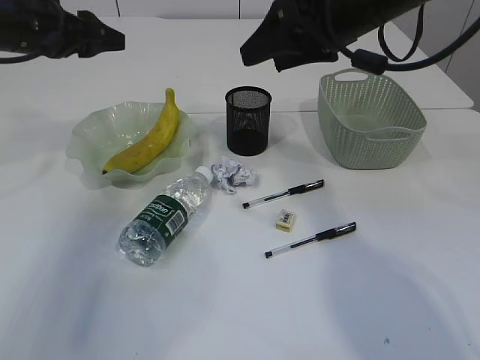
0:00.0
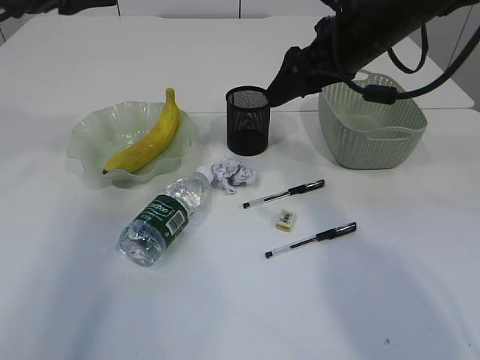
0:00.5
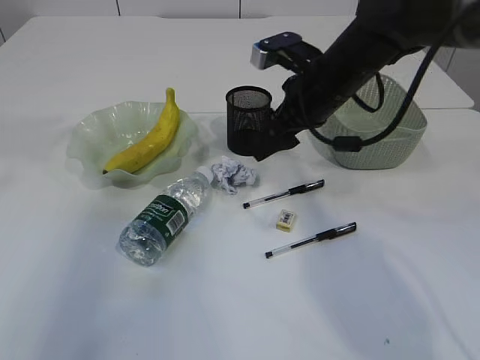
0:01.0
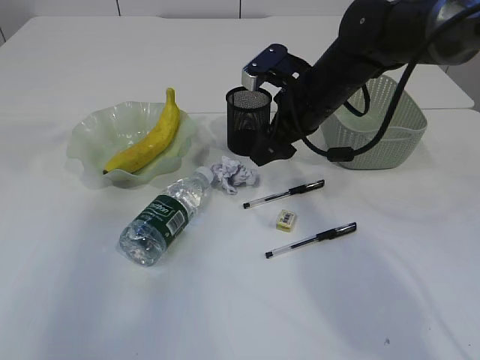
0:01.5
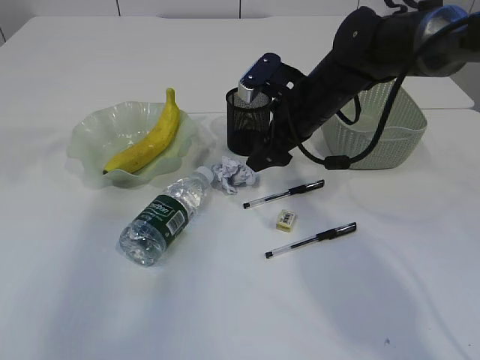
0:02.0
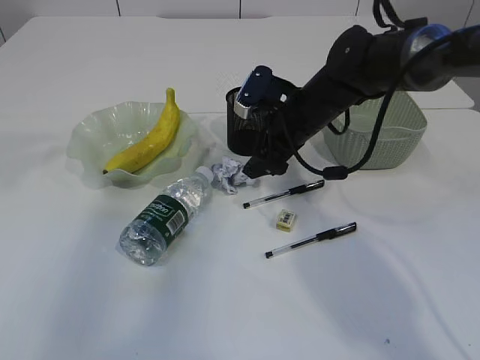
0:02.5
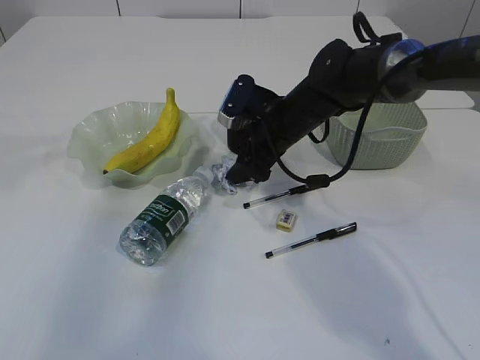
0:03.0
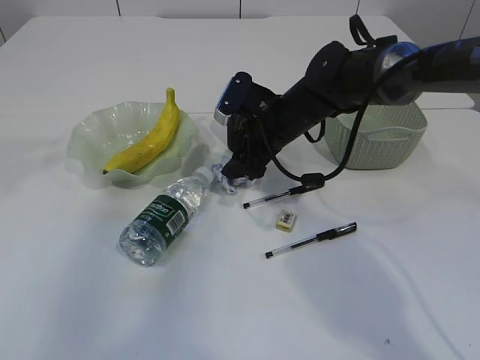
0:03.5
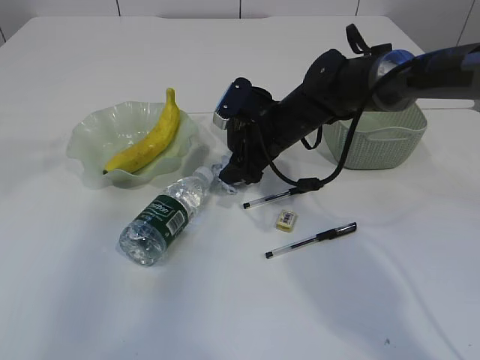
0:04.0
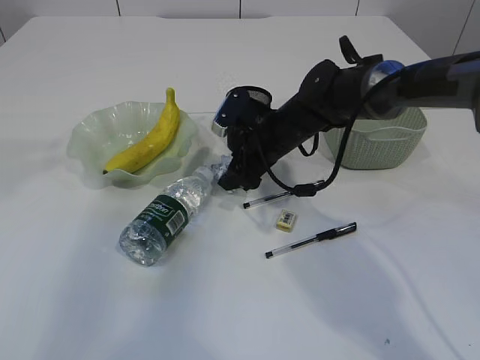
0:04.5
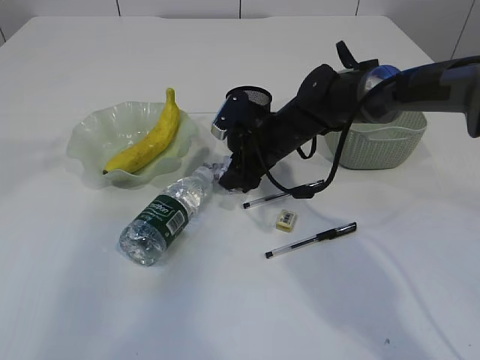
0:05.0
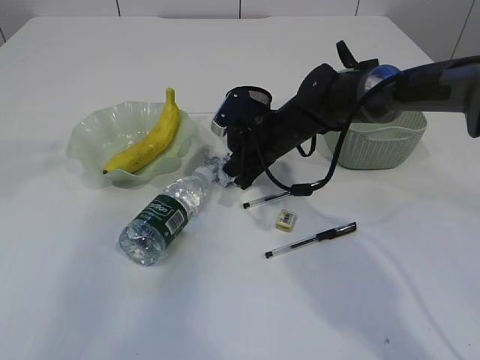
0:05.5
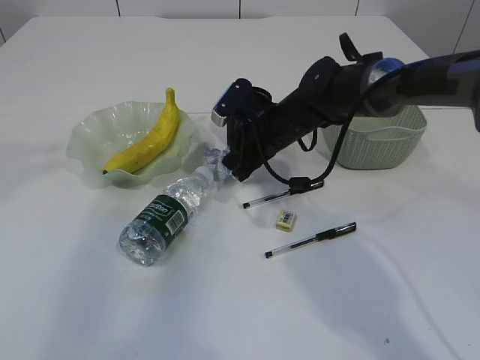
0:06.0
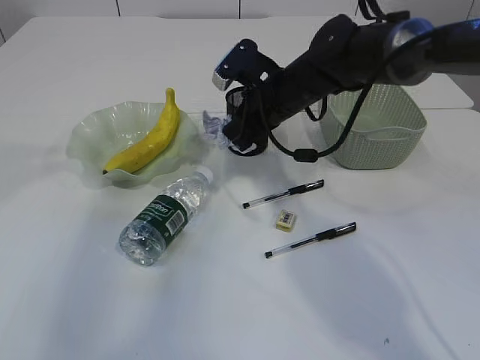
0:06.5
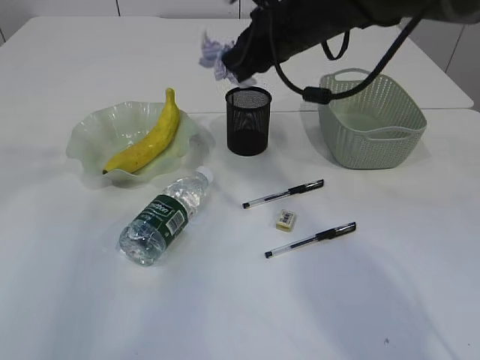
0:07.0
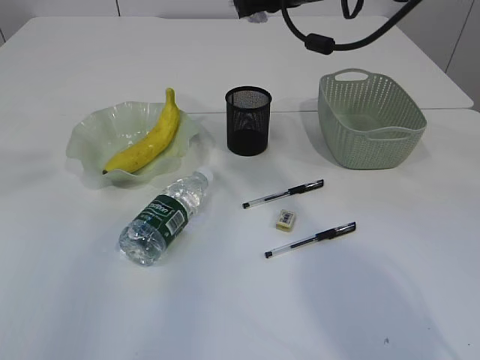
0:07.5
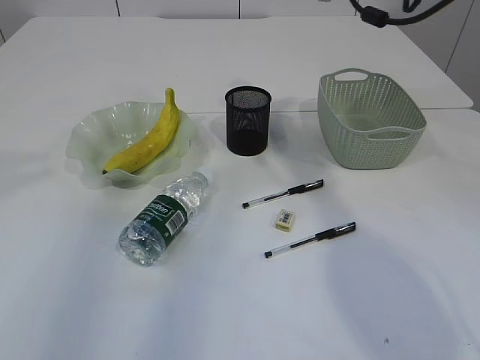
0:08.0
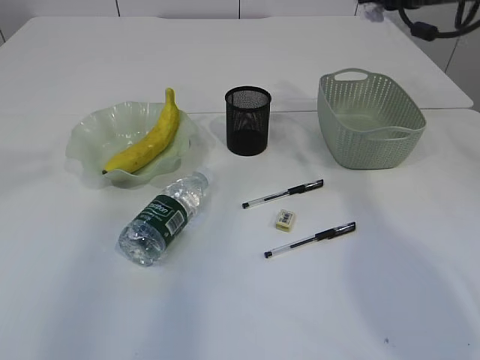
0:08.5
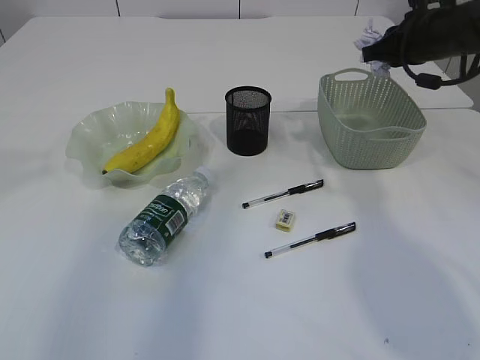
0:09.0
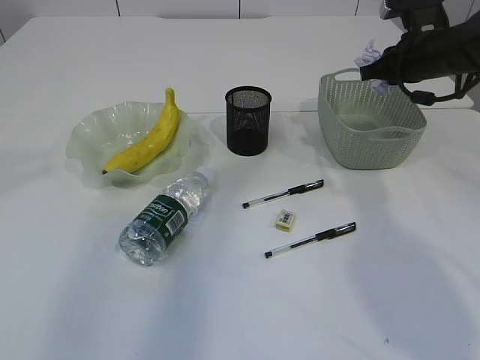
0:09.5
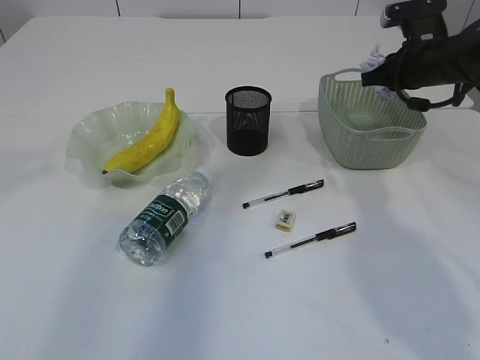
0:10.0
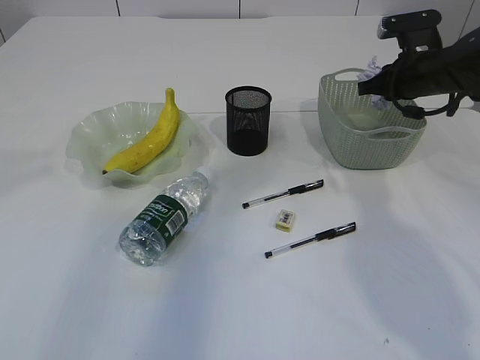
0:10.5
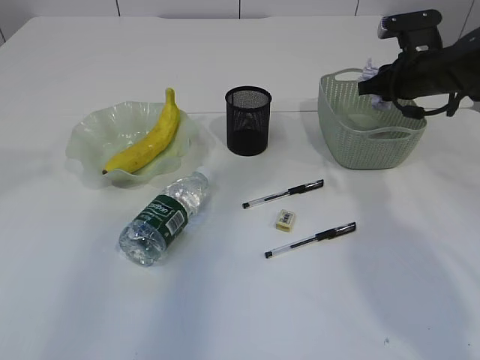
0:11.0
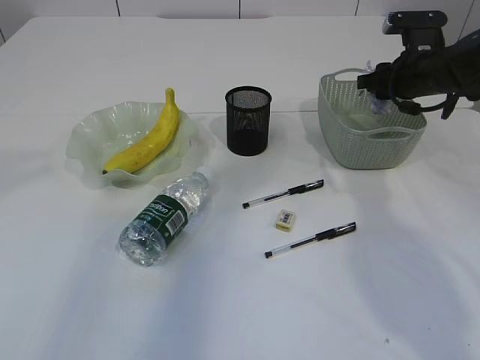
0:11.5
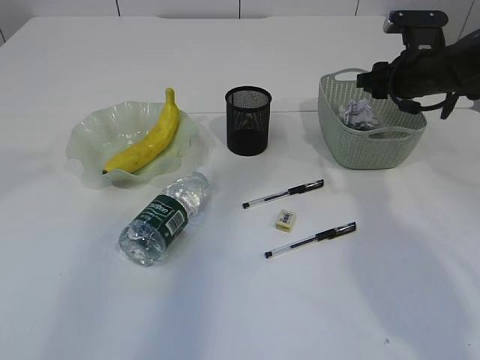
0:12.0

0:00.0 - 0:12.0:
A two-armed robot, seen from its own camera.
Step, 0:00.0 - 0:06.5: Pick up the waste paper.
0:00.0 - 0:02.0: The left gripper is displaced upward and backward by roughly 20 cm. Meanwhile the right gripper travels downward by roughly 15 cm.
0:02.0 - 0:04.0: The right gripper moves some 5 cm.
0:04.0 - 0:06.0: The right gripper closes its fingers.
0:06.0 - 0:08.0: The right gripper heads upward and to the right, covering about 25 cm.
0:08.0 - 0:10.0: The right gripper moves downward and to the right, roughly 15 cm.
0:10.0 - 0:12.0: The right gripper opens.

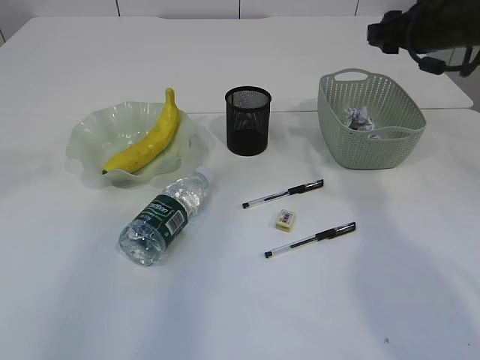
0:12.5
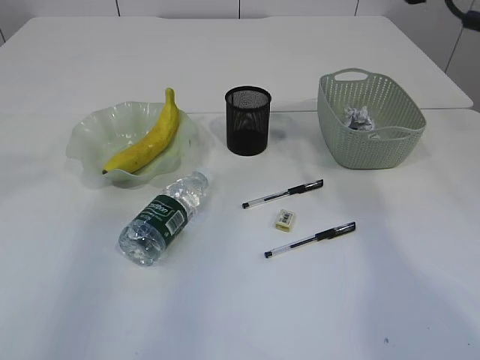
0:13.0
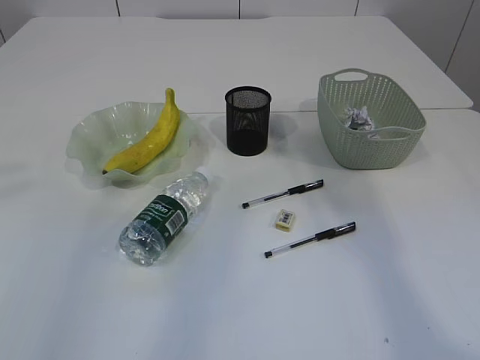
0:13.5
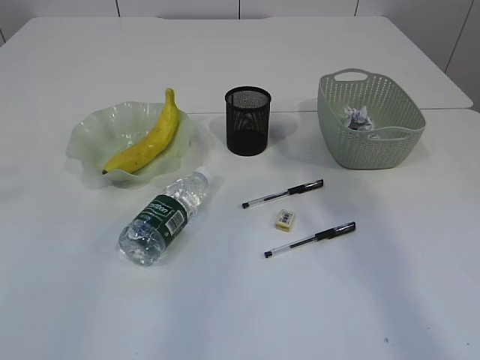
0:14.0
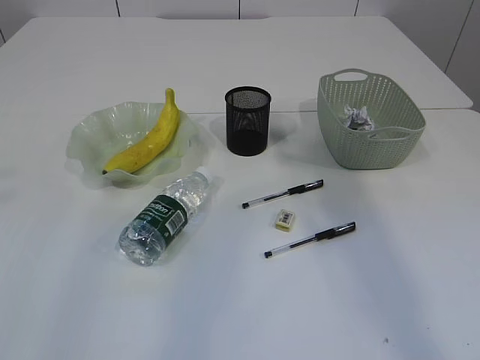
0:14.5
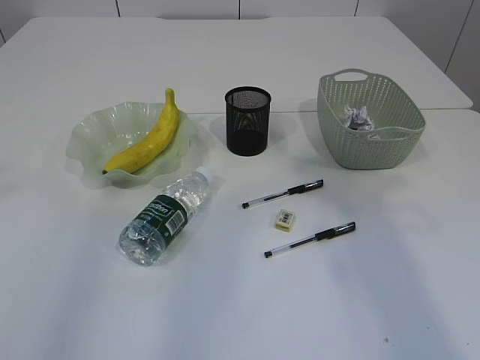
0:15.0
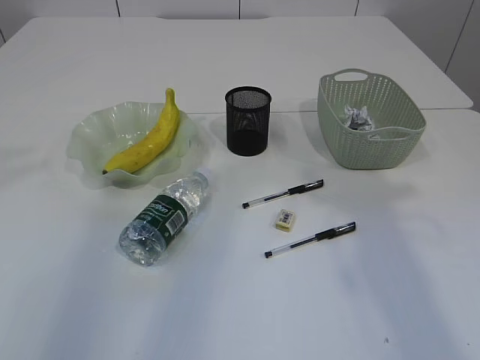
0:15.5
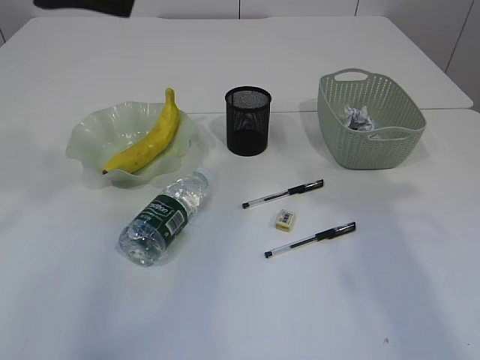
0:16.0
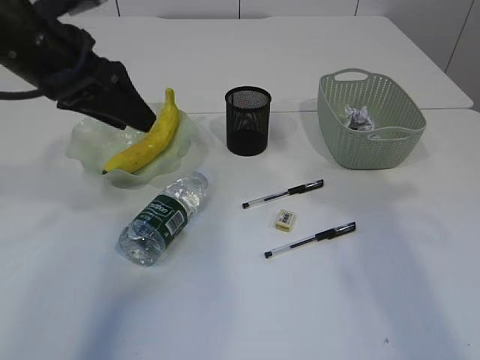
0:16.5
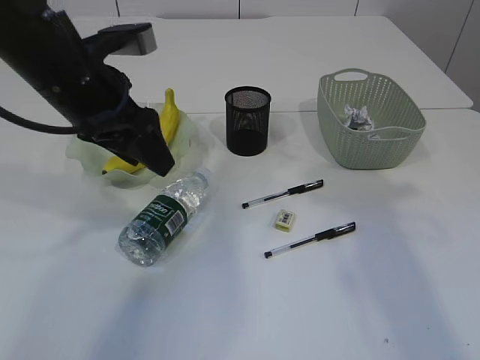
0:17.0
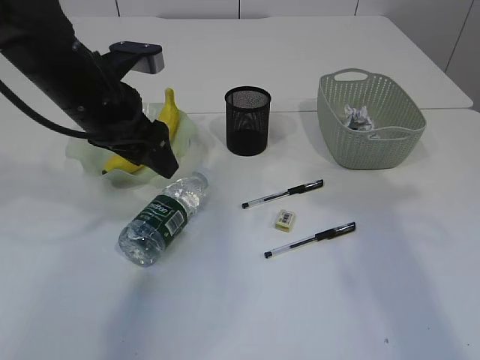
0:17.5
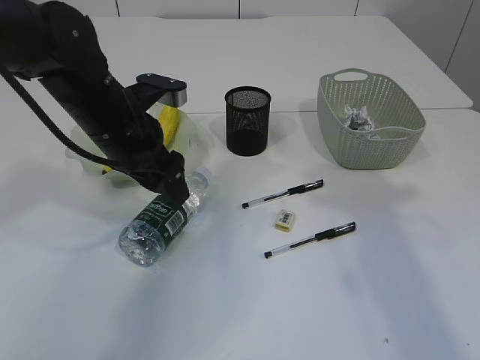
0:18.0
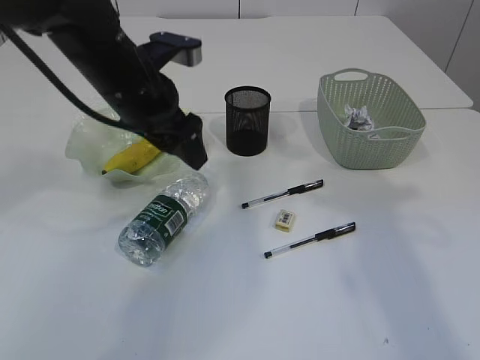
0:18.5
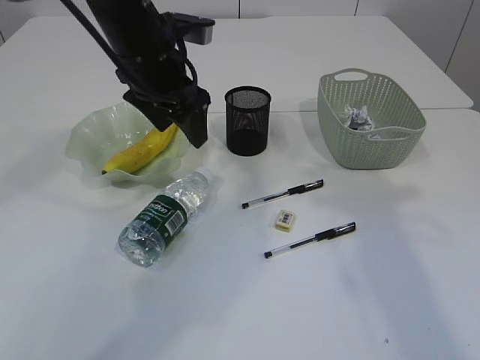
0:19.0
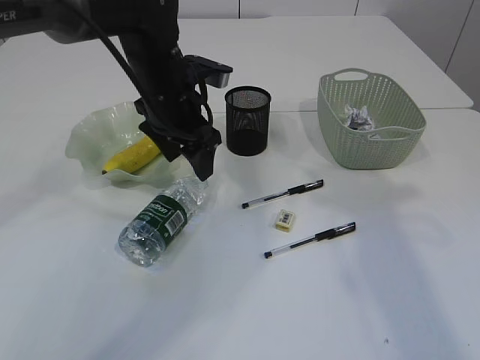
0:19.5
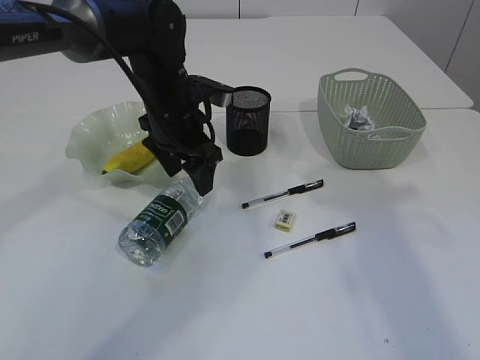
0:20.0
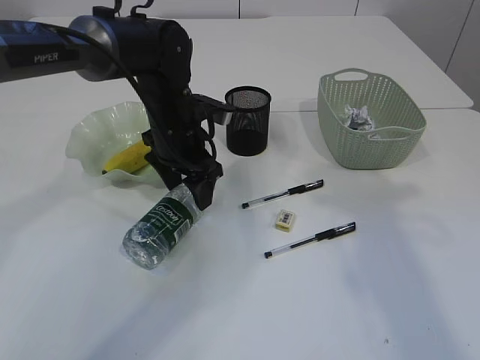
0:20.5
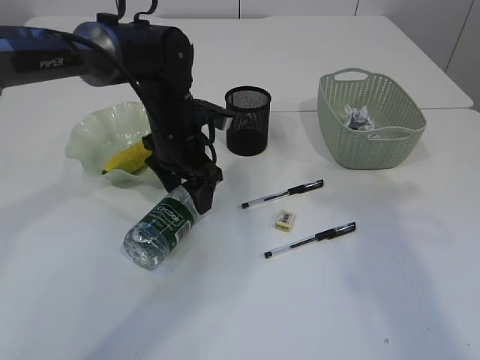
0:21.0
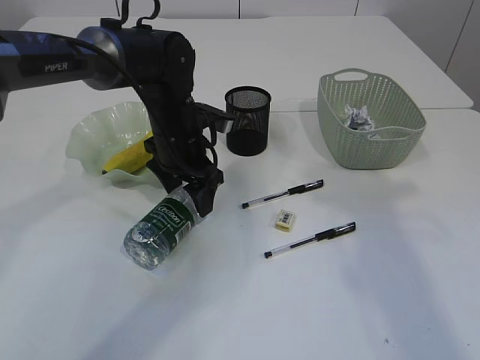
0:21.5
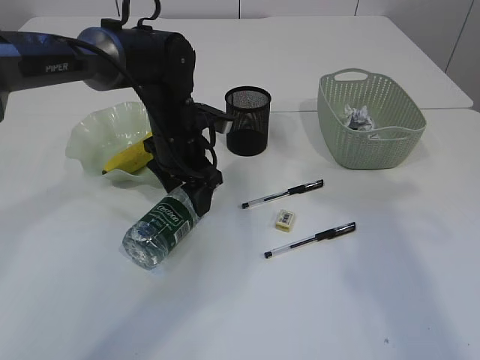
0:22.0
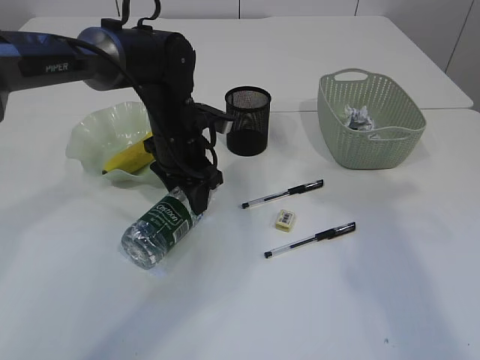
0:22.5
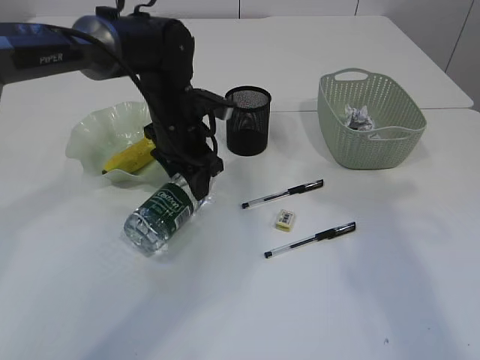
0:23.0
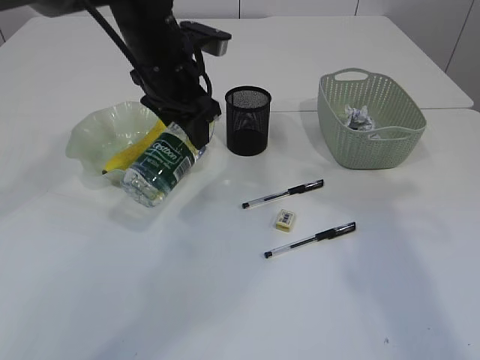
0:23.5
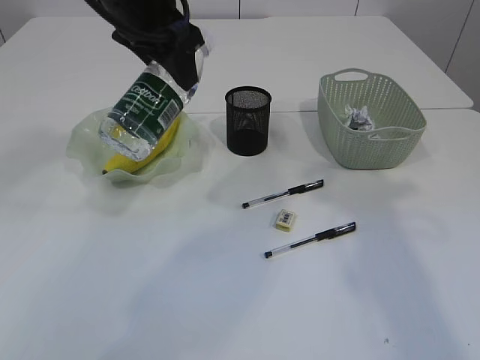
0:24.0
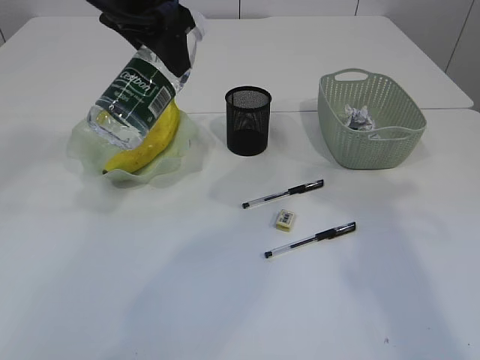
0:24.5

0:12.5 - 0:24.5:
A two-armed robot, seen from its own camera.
Step, 0:12.5 - 0:23.5: Pick up the bottle with the left arm.
0:12.5 - 0:14.5: The right gripper is displaced upward and backward by approximately 30 cm.
0:14.5 - 0:16.5: The left gripper shifts about 25 cm downward and forward. Meanwhile the right gripper goes some 10 cm downward.
0:16.5 - 0:18.5: The left gripper shifts some 10 cm to the right and downward, and opens up.
0:18.5 - 0:20.5: The left gripper goes about 10 cm downward and forward.
0:20.5 - 0:22.5: The left gripper closes its fingers.
0:22.5 - 0:24.5: The left gripper is displaced upward by about 20 cm.

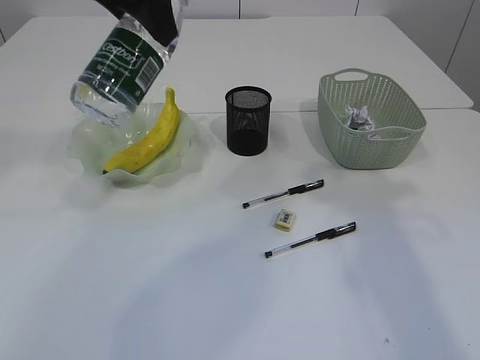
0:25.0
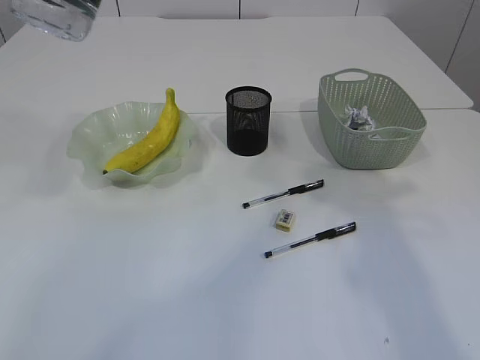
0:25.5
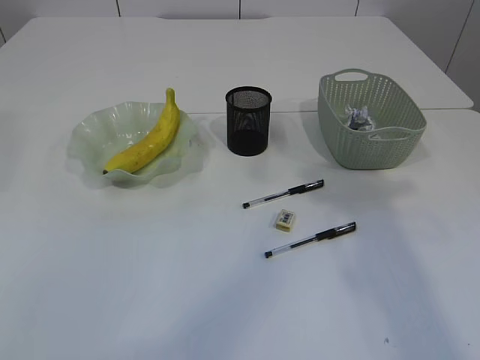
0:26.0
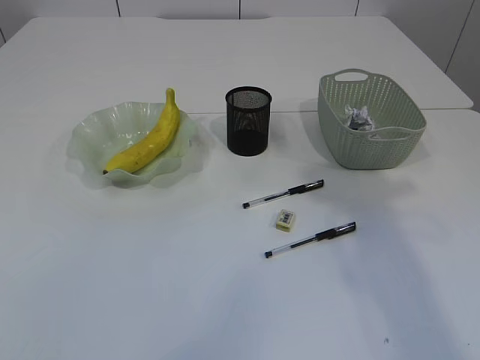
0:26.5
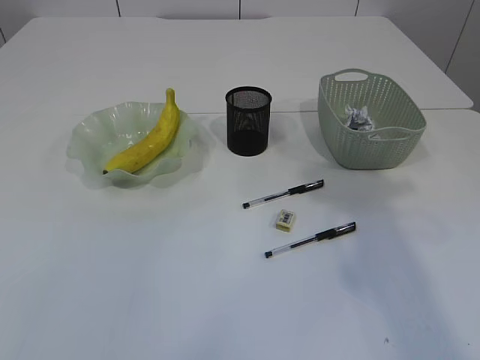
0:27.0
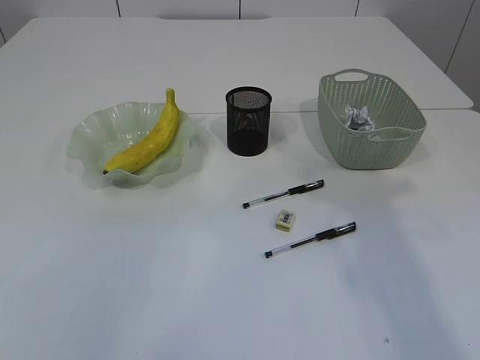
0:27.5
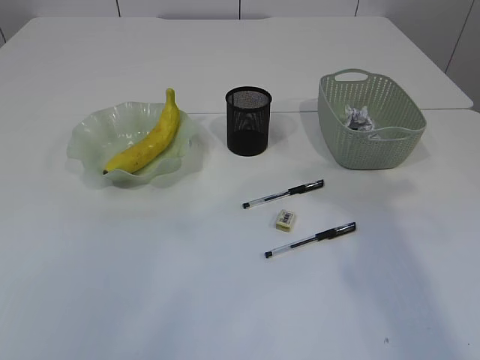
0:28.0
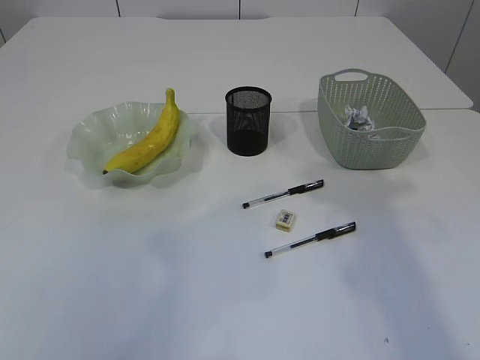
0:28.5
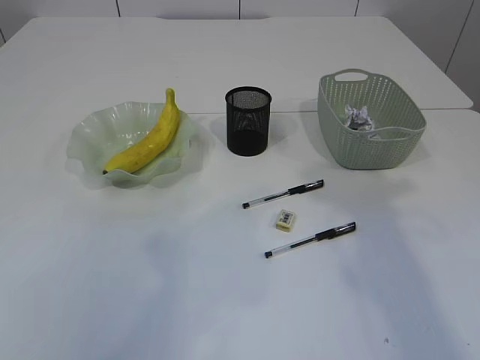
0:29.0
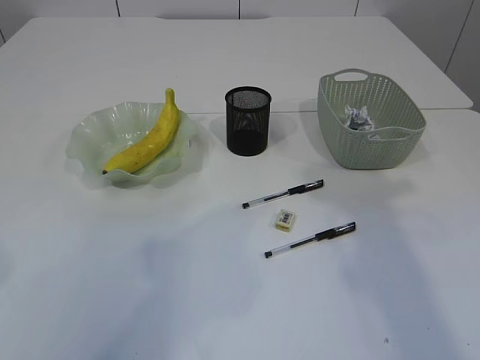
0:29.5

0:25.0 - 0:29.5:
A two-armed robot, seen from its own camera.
0:25.0 - 0:27.0: The left gripper goes roughly 35 cm backward, upward and to the left.
